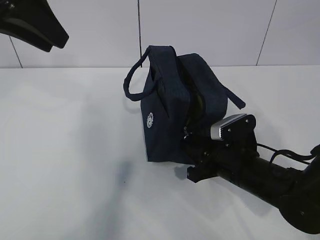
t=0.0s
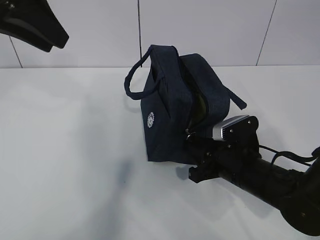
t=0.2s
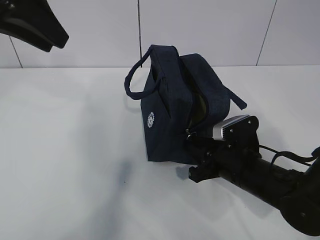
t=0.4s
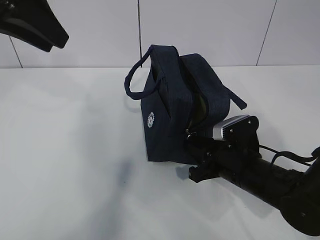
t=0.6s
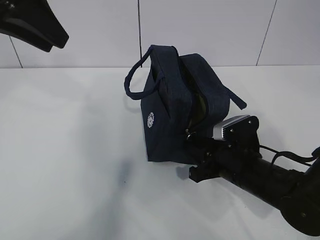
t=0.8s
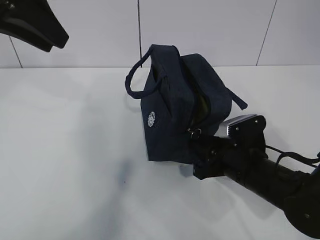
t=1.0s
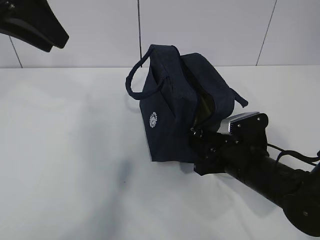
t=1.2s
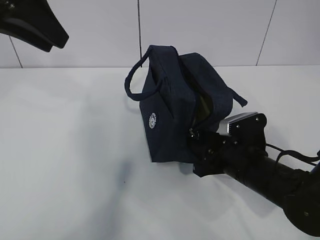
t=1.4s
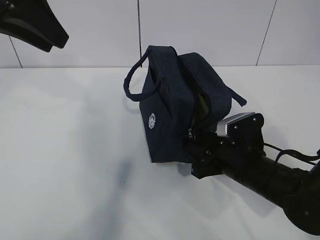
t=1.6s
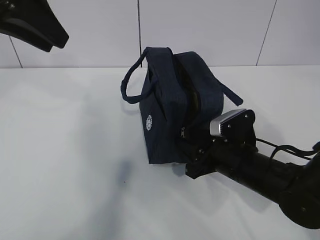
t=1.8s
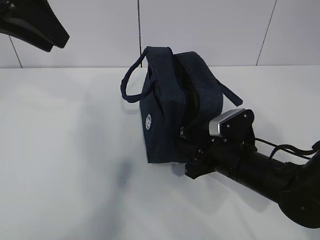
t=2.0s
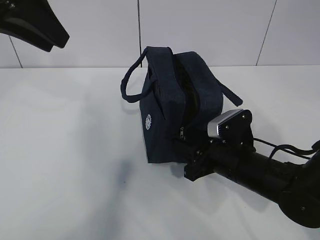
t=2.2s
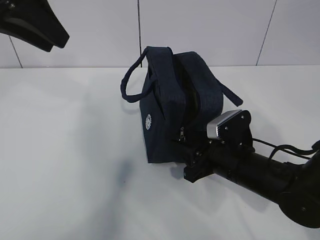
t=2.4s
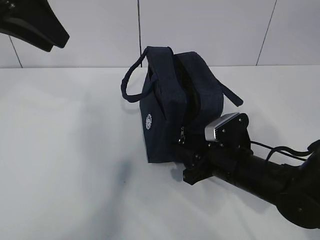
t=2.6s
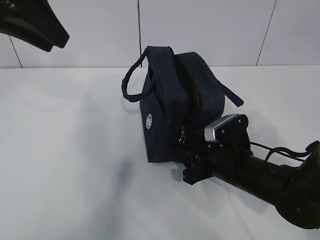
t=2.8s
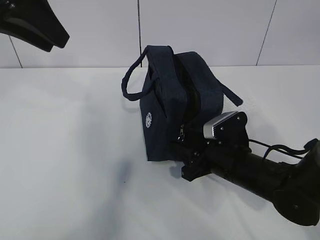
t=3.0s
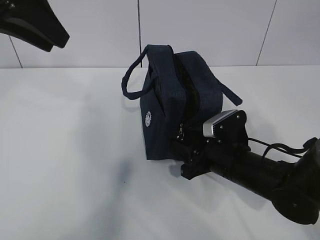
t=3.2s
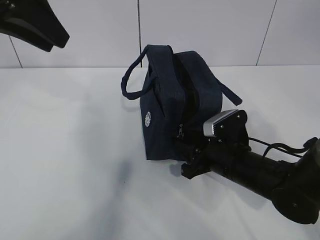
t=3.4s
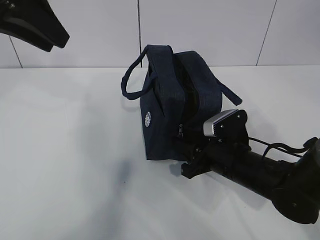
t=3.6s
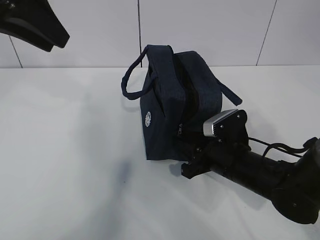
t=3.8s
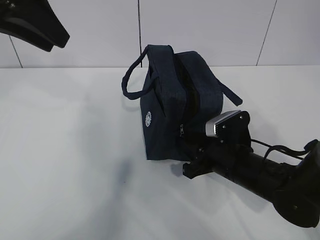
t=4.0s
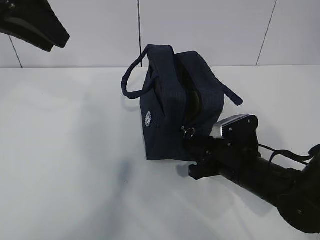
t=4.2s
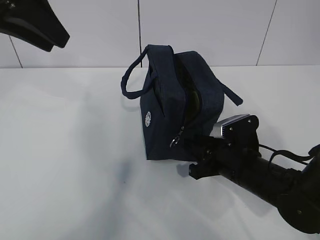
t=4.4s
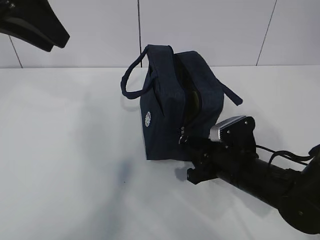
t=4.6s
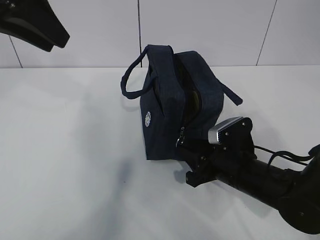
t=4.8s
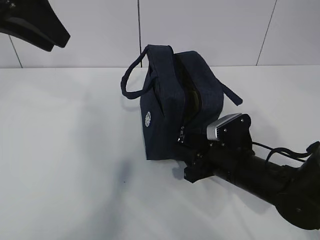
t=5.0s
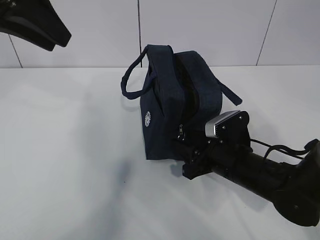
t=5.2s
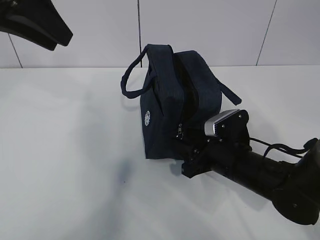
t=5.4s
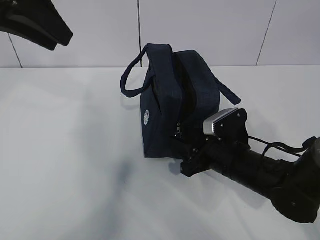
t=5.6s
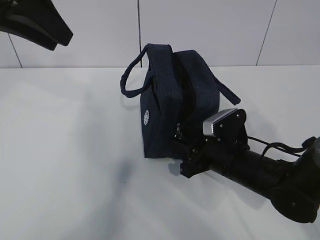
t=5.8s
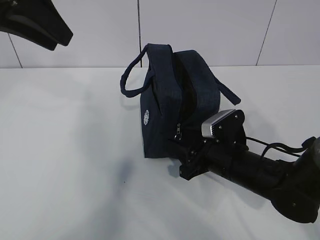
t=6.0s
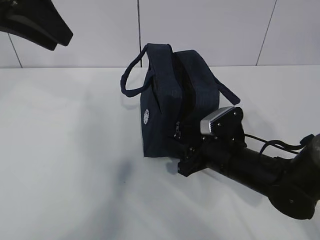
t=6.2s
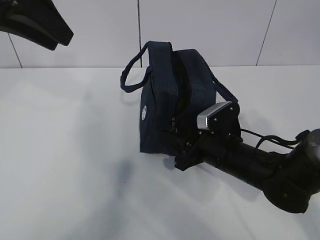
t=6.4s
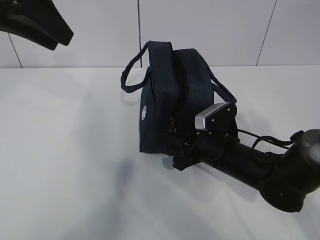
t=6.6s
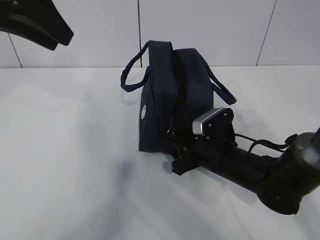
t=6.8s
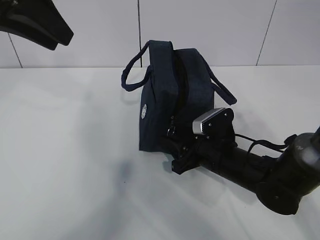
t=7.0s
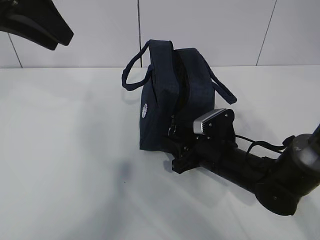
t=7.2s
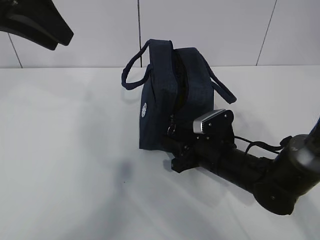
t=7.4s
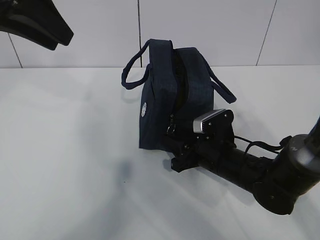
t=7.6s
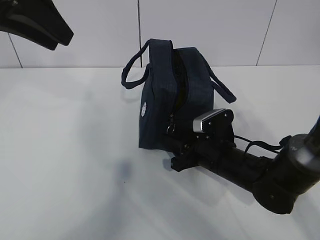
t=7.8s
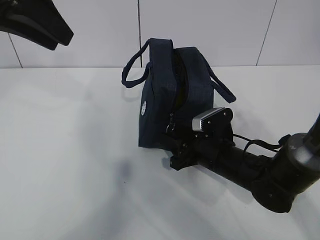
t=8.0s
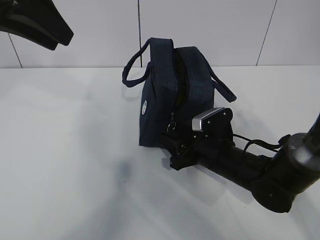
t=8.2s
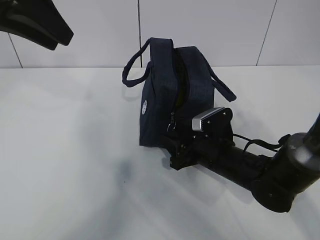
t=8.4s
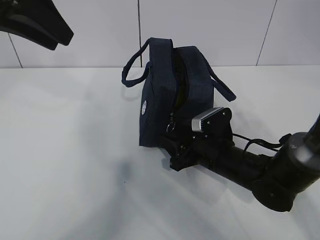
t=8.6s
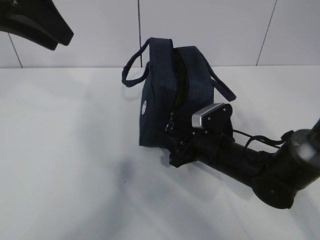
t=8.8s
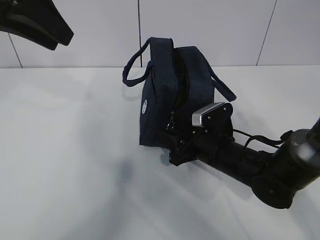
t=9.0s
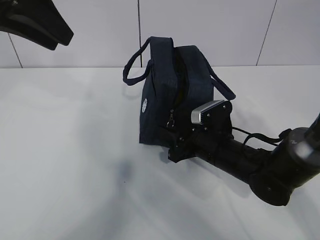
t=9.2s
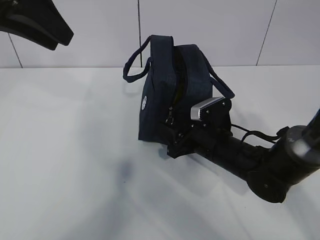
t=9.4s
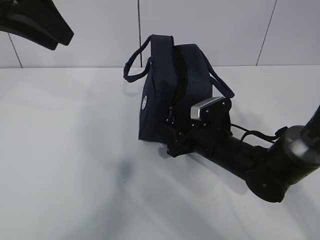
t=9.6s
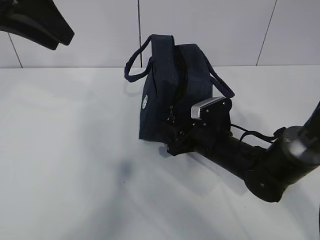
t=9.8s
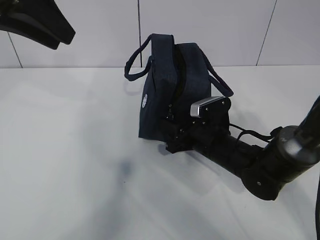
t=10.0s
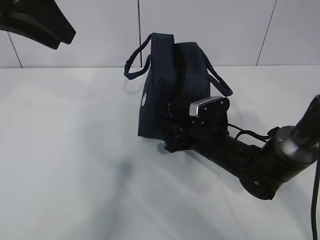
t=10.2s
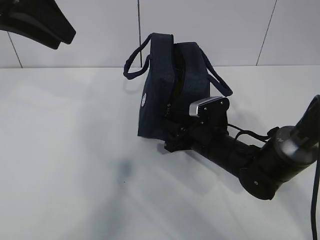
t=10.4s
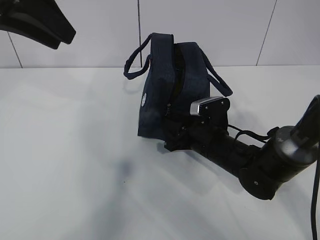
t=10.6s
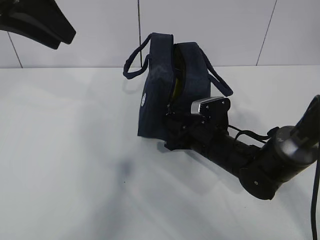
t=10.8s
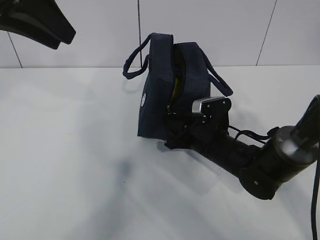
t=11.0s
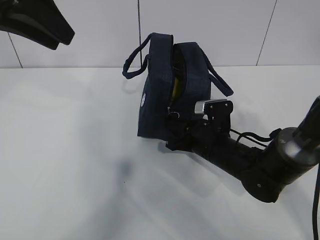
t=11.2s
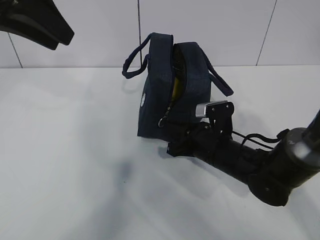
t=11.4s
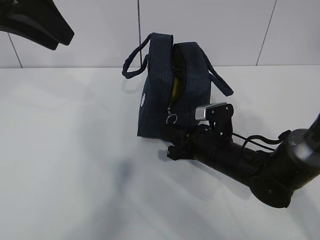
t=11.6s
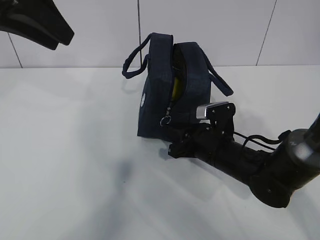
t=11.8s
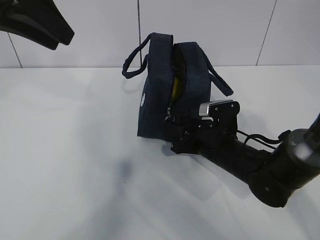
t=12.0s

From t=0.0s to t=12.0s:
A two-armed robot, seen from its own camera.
From t=0.0s to t=4.4s: The grippers stay close to where they were, moving slightly.
From t=4.4s to t=6.0s: The right gripper opens up.
From t=6.0s to t=7.6s: The grippers move only a little.
From t=7.6s to t=9.0s: Both grippers stay about where they are.
From t=9.0s to t=10.4s: The right gripper closes up.
From t=10.4s to t=12.0s: The right gripper closes, then opens again.

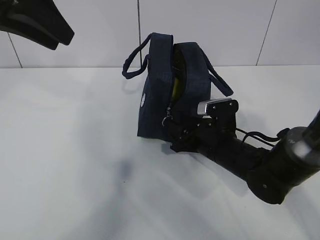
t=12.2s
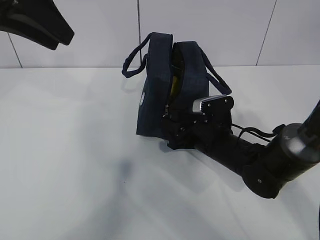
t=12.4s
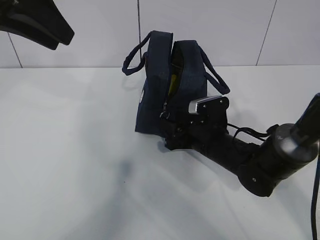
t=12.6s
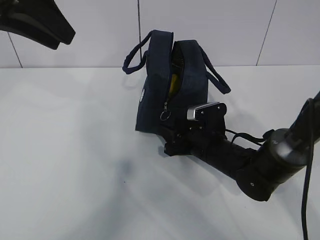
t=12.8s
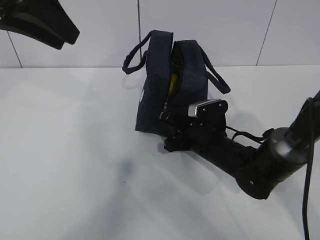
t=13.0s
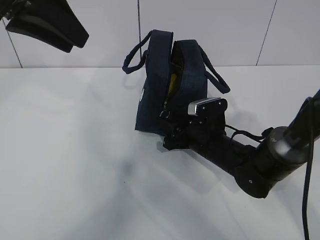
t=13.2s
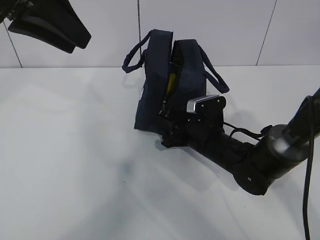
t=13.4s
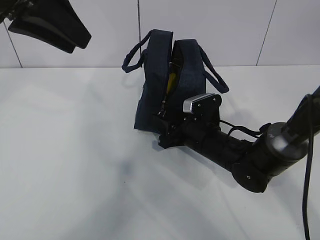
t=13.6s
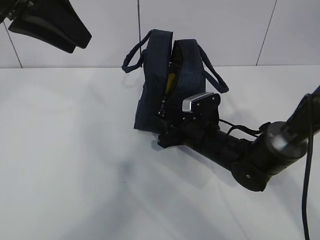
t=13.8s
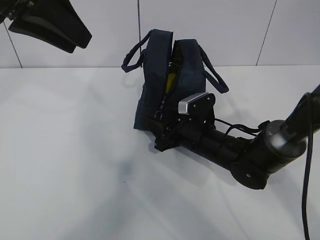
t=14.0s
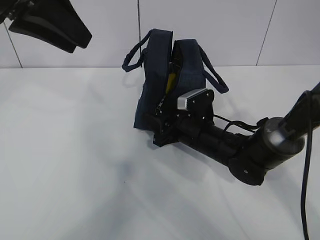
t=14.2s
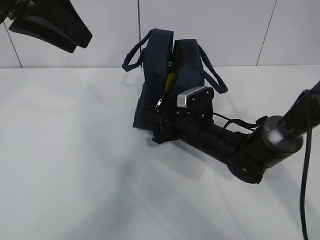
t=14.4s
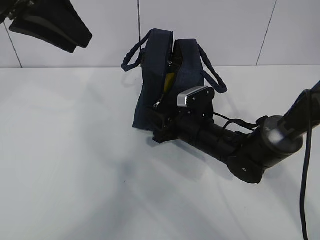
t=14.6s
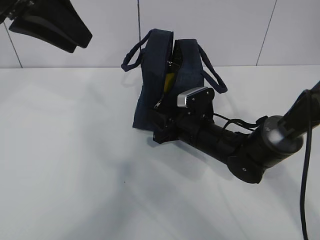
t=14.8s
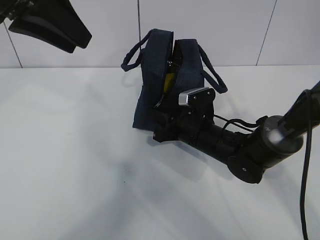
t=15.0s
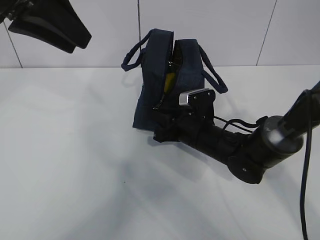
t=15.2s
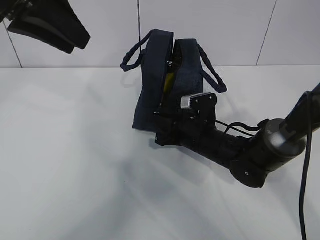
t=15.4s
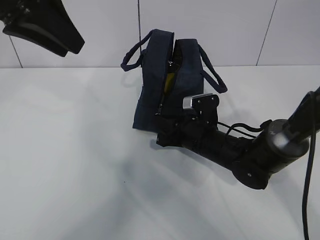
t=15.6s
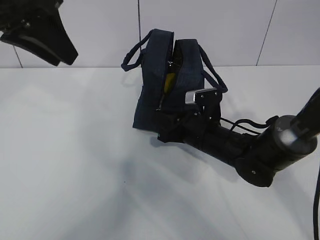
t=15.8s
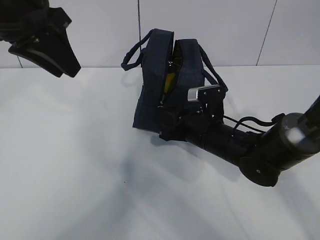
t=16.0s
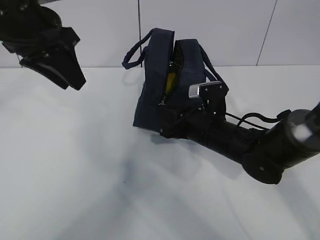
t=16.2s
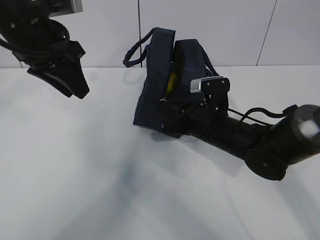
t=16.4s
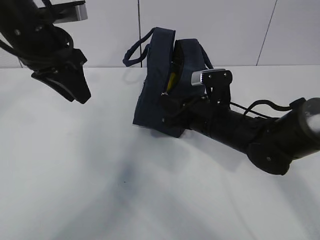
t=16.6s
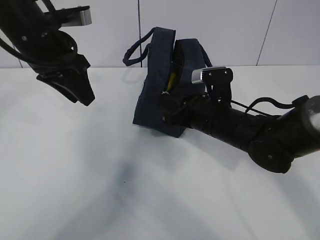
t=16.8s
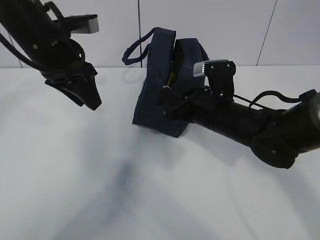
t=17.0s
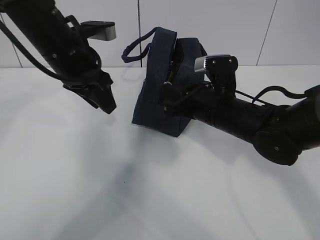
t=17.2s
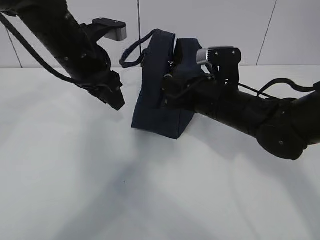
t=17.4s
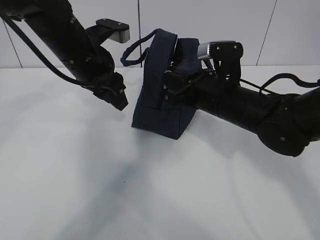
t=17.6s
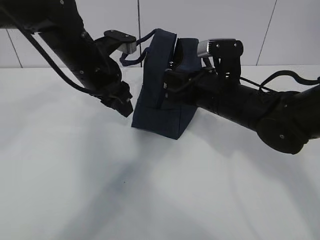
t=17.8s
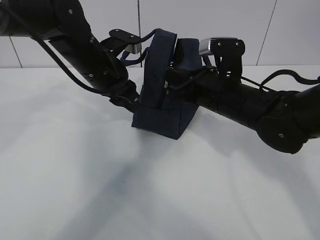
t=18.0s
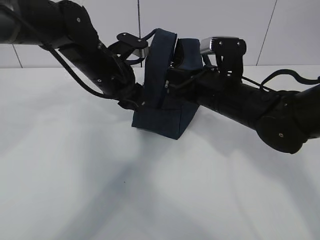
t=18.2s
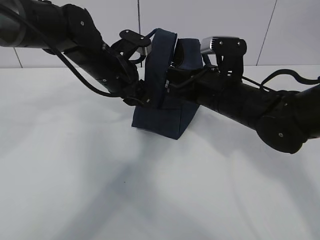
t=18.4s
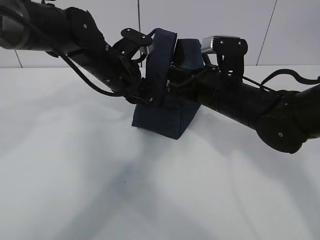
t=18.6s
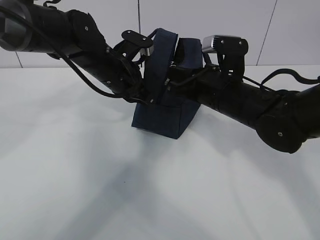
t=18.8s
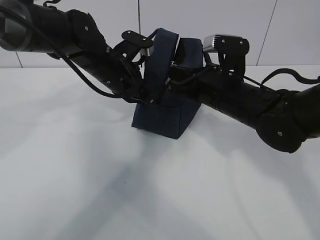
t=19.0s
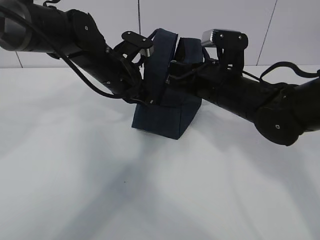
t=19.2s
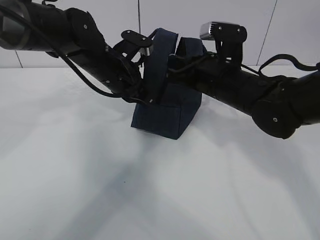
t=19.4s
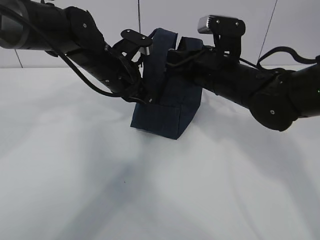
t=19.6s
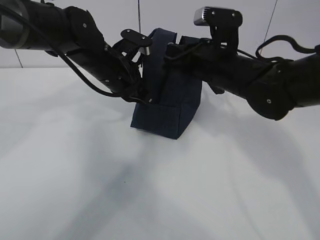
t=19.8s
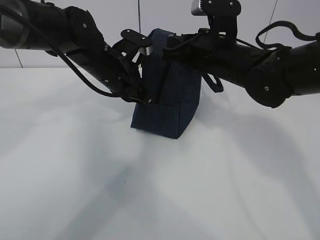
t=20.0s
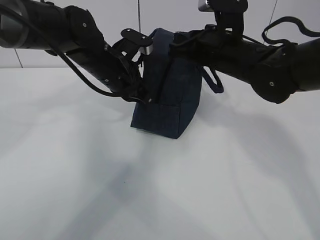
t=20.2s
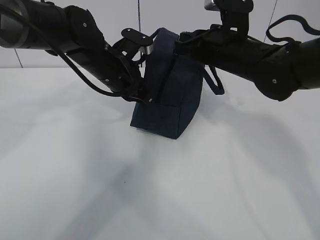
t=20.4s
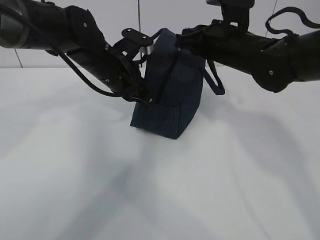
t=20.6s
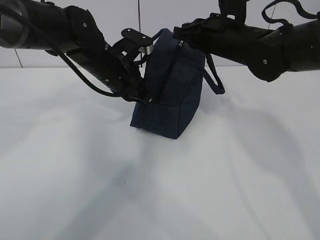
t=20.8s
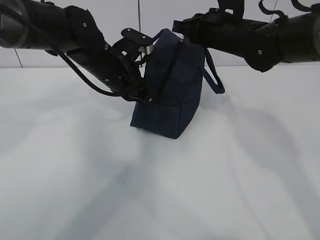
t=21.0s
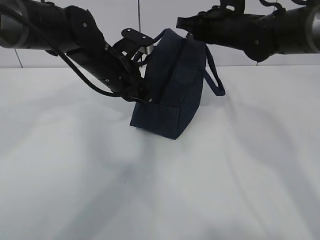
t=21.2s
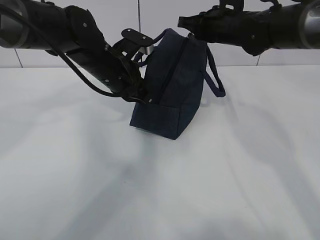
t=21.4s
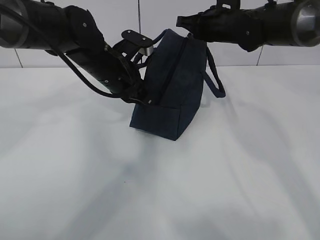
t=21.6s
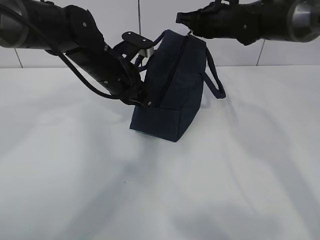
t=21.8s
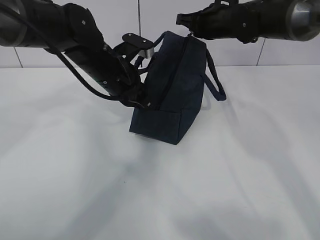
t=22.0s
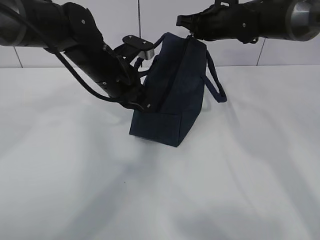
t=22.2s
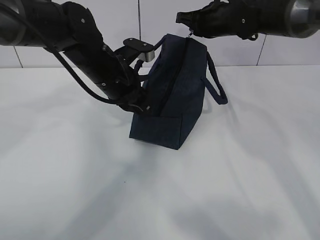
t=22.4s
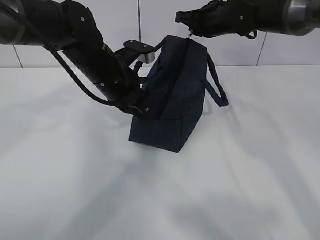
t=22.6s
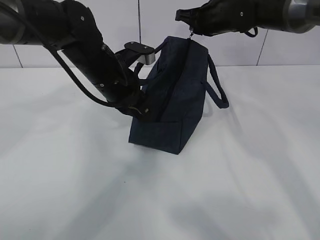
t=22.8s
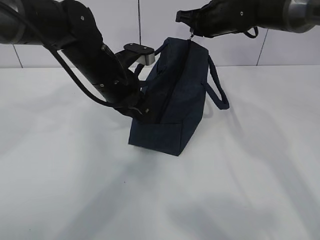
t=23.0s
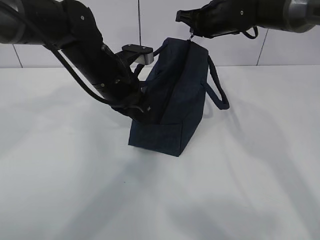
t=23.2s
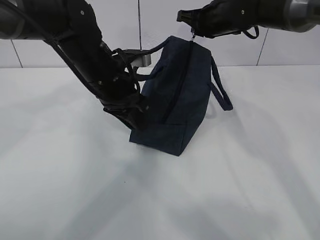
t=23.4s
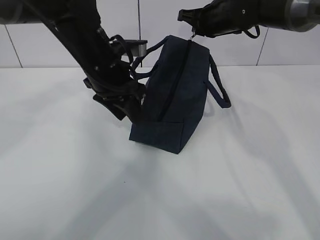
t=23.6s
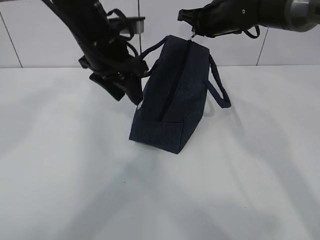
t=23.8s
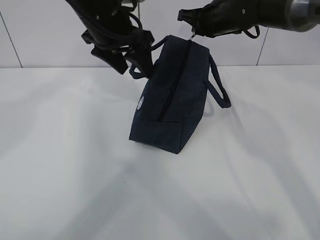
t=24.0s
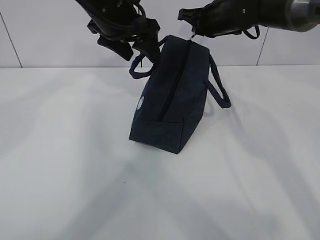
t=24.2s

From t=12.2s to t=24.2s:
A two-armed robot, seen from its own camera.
Step, from t=12.2s to t=17.0s: Pull the zipper with your right hand.
Step, from t=17.2s to t=17.4s: Grab the lunch bag with your left hand.
From t=12.2s to t=13.8s: The grippers move only a little.
From t=13.8s to t=15.2s: The right gripper closes up.
From t=15.2s to t=16.6s: The right gripper moves upward, approximately 5 cm, while the left gripper travels downward and forward by roughly 10 cm.
From t=16.6s to t=18.2s: The right gripper shifts about 5 cm upward, while the left gripper travels downward and to the right by roughly 10 cm.
From t=18.2s to t=19.8s: The left gripper closes up.
From t=19.8s to t=21.2s: The right gripper travels forward by some 10 cm.
From t=21.2s to t=22.6s: The grippers move only a little.
From t=22.6s to t=24.2s: The left gripper goes approximately 10 cm upward, and opens.
